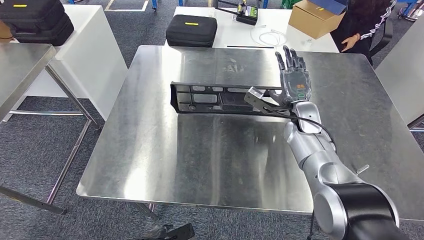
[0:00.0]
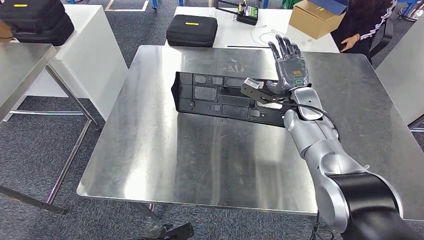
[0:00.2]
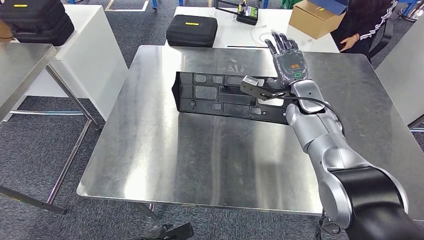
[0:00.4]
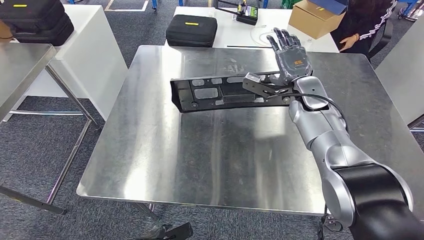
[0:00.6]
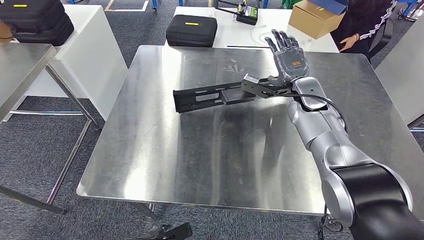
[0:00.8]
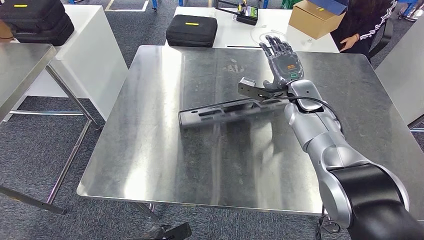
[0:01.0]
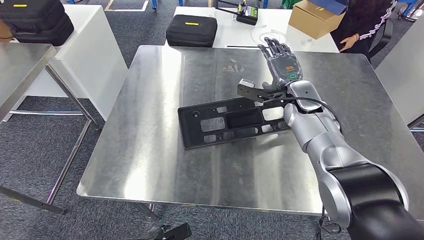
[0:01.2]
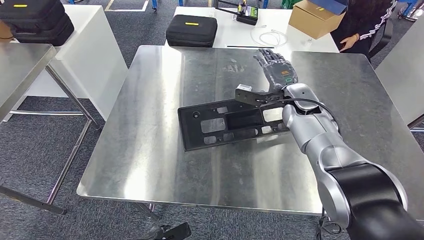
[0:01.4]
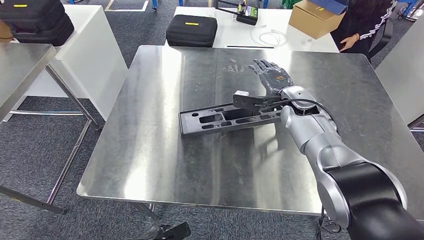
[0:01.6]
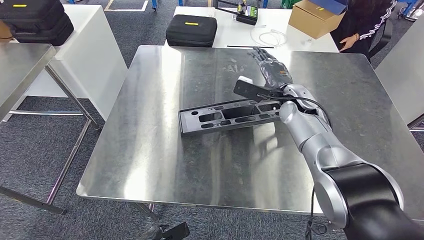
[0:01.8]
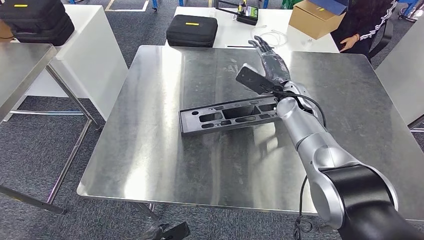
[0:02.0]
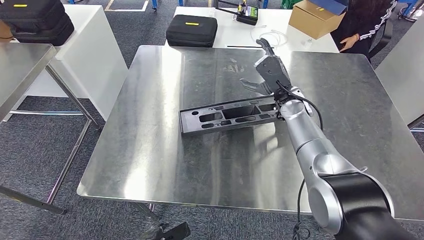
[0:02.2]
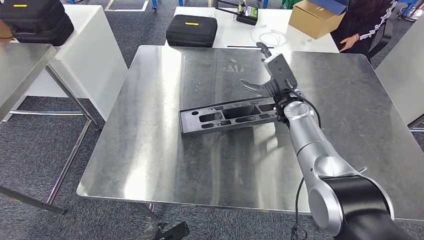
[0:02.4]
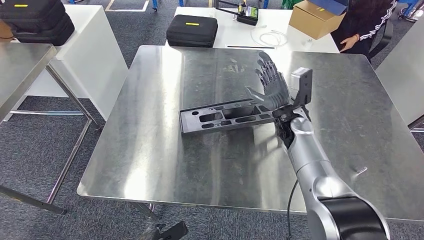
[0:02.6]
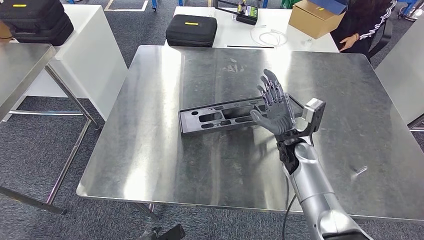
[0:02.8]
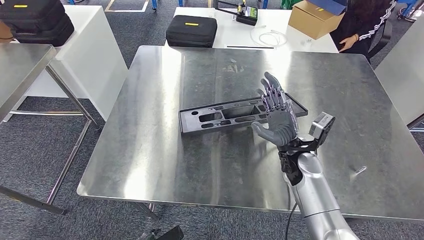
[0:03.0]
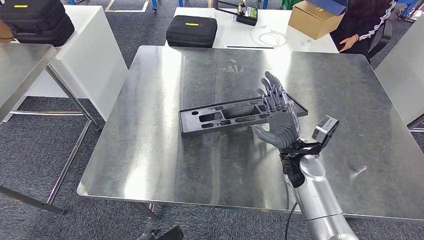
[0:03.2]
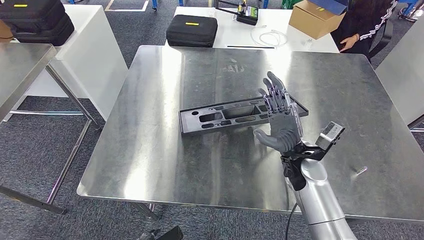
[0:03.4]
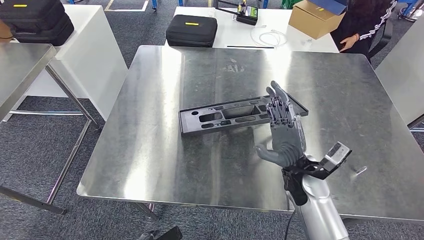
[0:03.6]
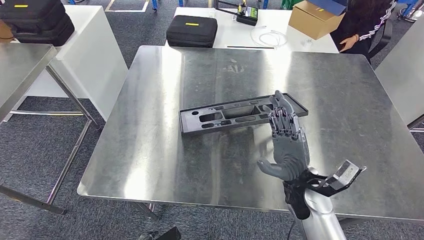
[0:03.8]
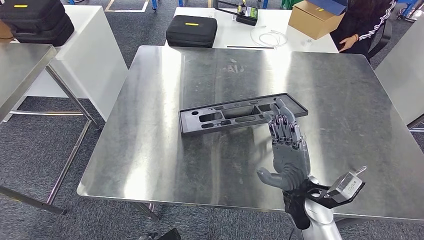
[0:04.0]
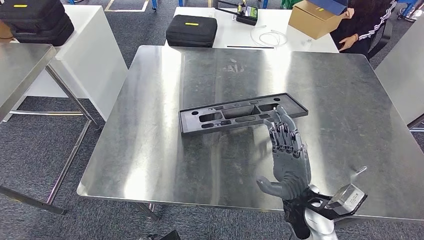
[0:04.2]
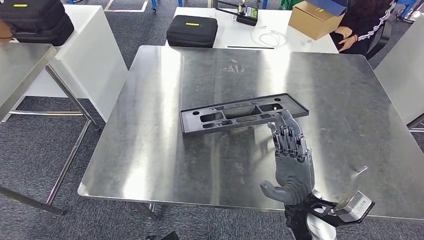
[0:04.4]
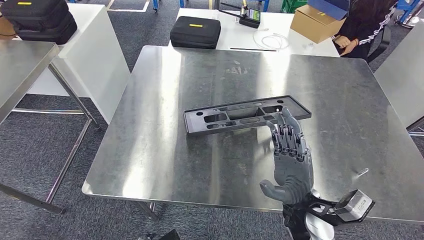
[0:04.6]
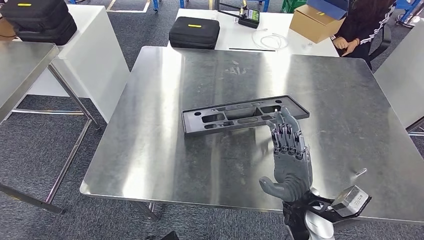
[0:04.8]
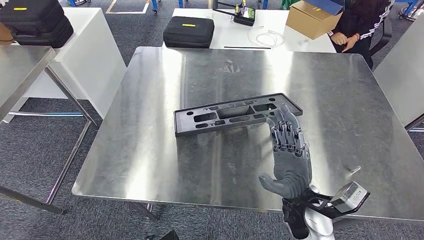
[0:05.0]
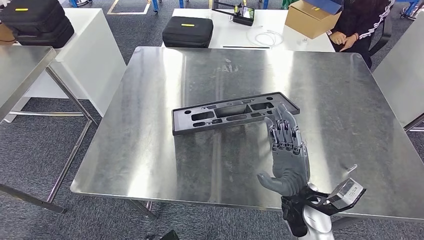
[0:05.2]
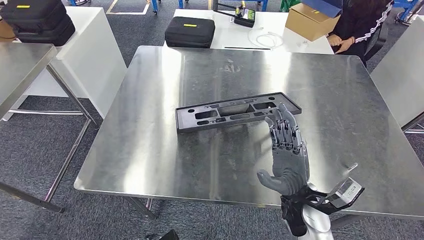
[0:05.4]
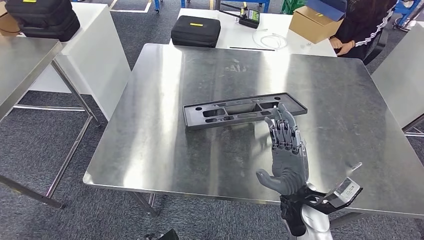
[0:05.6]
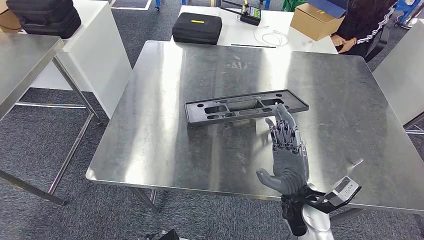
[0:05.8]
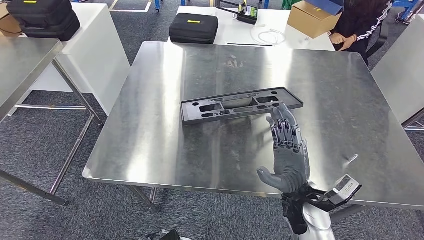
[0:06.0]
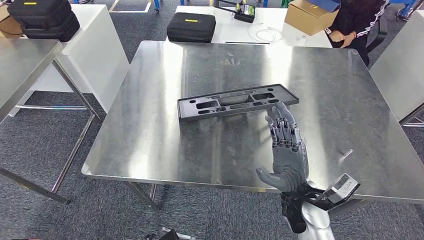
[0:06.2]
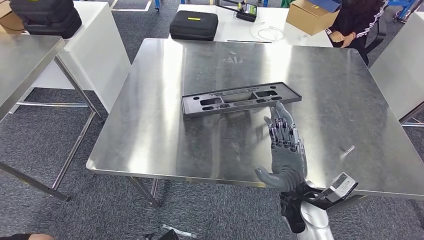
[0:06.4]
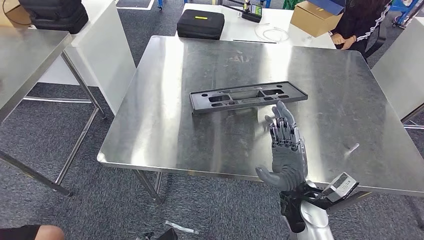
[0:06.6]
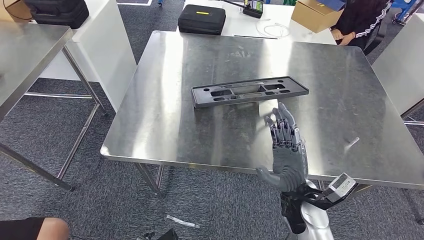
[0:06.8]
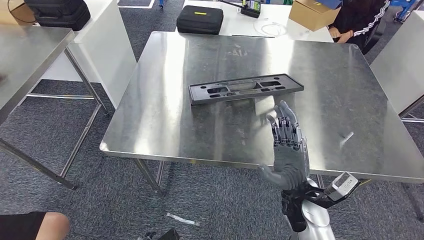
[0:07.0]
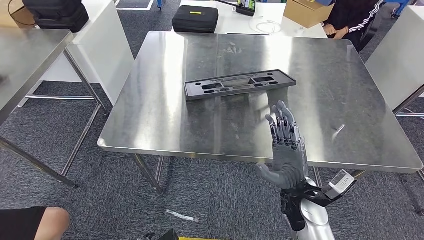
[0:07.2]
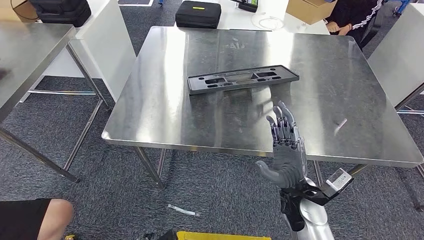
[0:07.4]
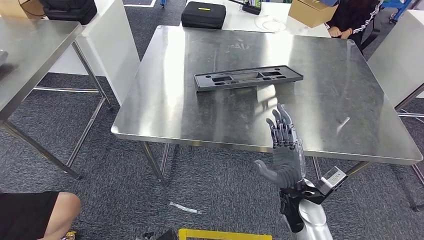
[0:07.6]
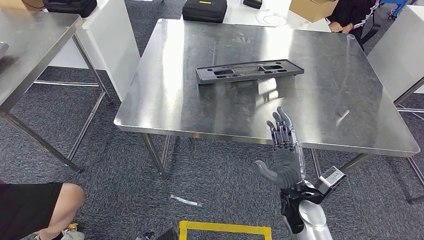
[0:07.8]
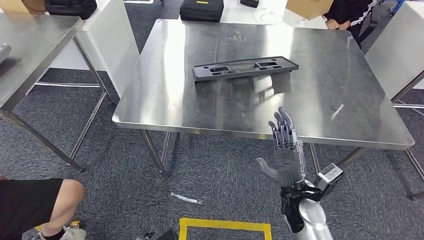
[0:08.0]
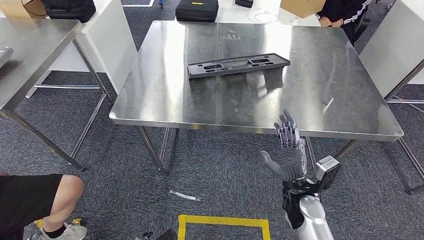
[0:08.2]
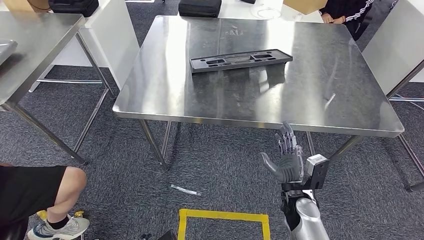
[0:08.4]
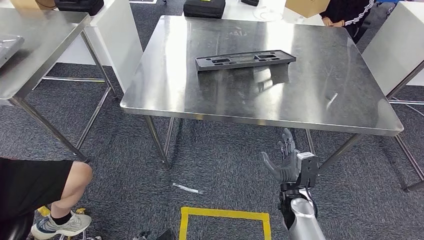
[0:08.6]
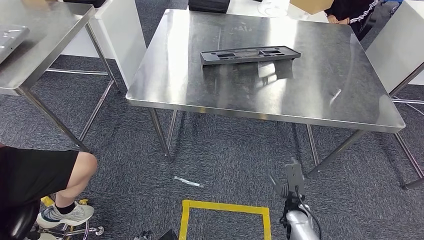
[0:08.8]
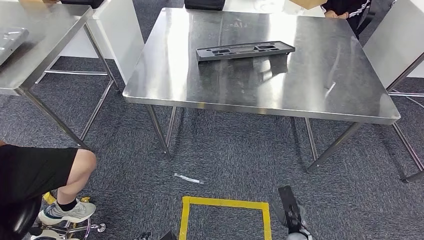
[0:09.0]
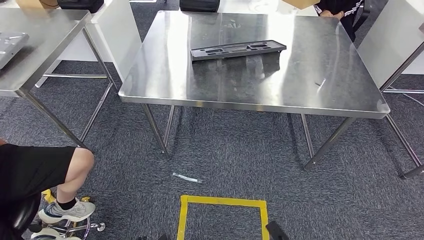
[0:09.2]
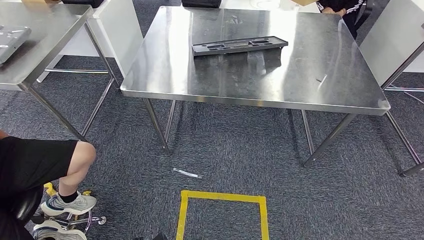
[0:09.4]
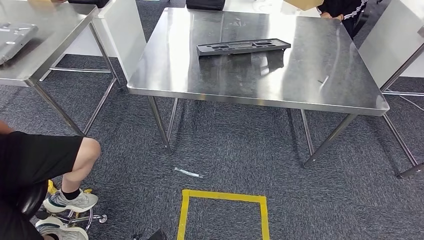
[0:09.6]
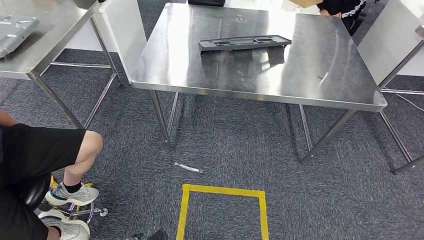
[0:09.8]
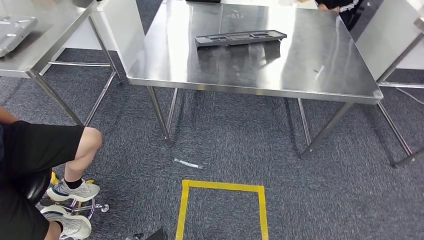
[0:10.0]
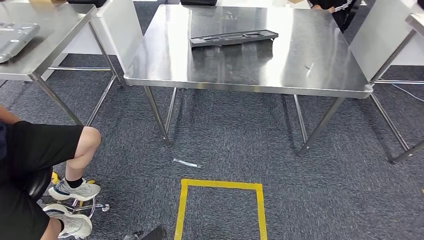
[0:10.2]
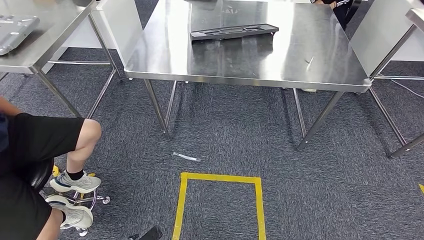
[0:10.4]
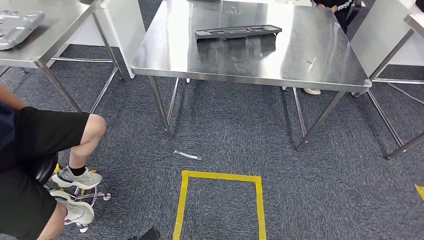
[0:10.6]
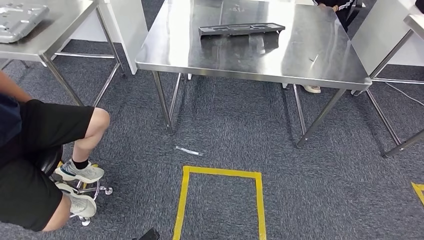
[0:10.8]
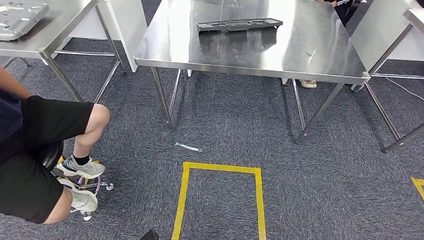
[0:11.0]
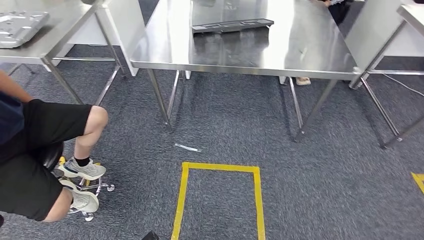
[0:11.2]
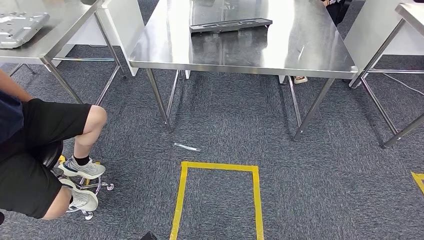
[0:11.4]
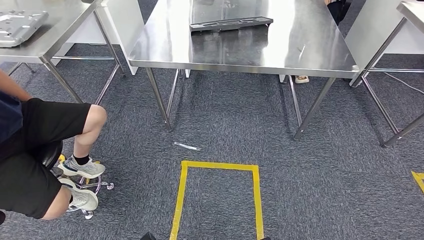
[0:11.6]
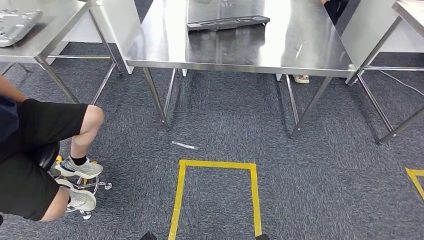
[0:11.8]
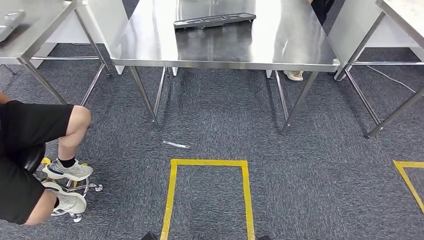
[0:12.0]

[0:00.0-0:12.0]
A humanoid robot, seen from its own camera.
0:00.0 to 0:01.6: The right hand moves some 5 cm.
0:01.6 to 0:03.0: The right hand moves backward and downward, roughly 15 cm.
0:03.0 to 0:04.4: The right hand shifts approximately 15 cm backward.

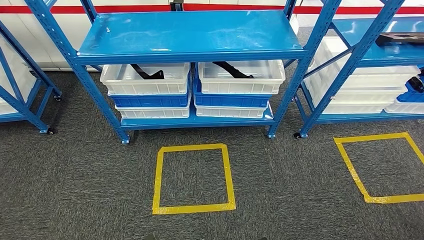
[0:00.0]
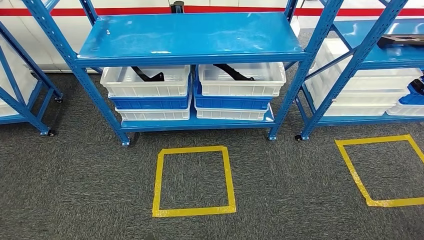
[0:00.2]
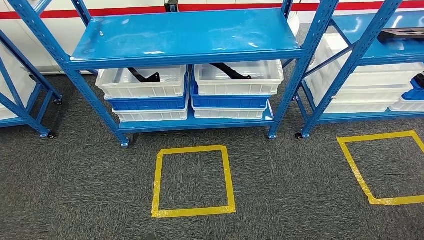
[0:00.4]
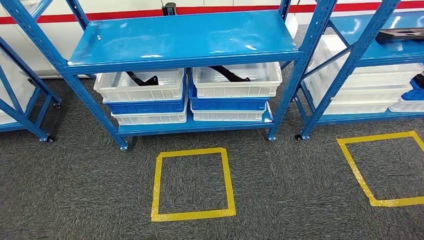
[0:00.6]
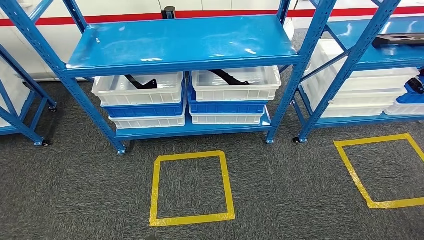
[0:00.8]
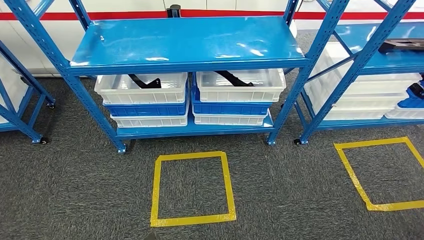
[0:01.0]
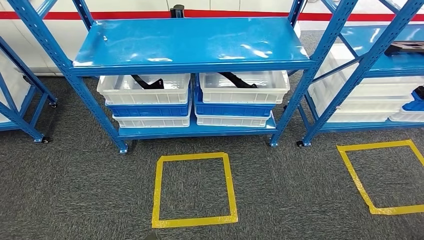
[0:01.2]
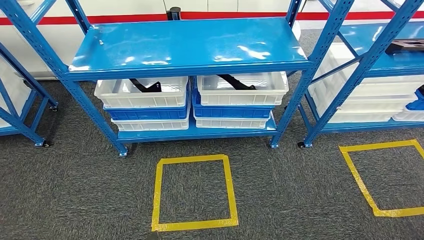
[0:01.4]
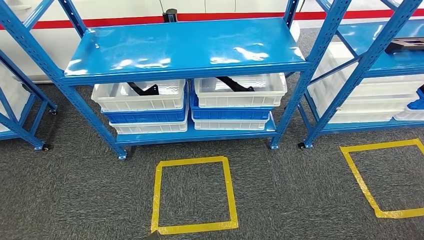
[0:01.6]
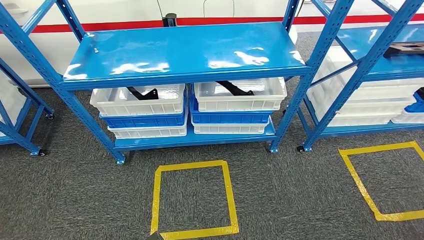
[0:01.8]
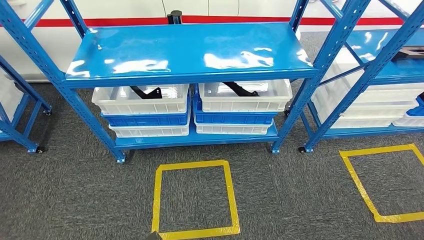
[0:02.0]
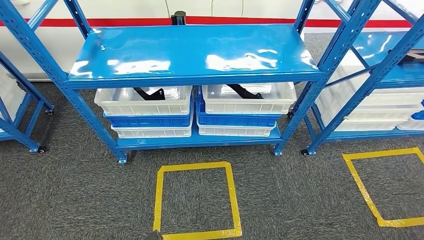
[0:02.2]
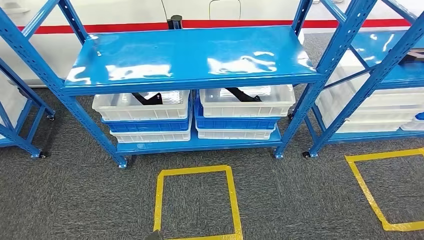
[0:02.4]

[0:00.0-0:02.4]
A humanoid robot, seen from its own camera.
Step, 0:00.0 to 0:02.2: Return to the initial position at the shelf.

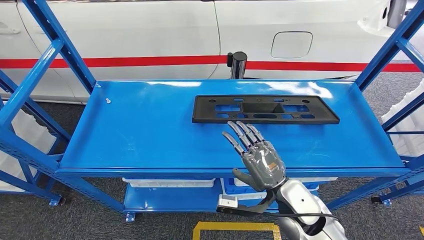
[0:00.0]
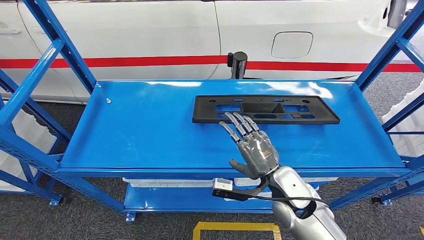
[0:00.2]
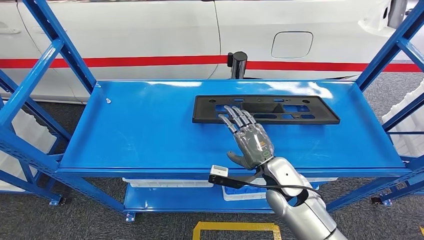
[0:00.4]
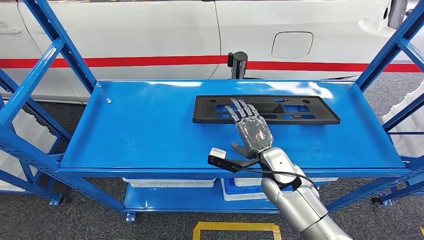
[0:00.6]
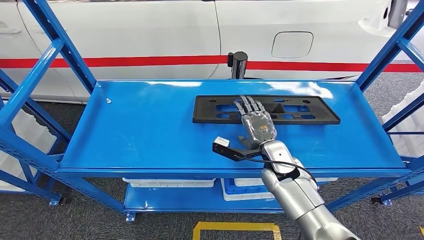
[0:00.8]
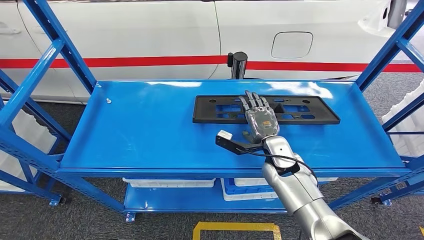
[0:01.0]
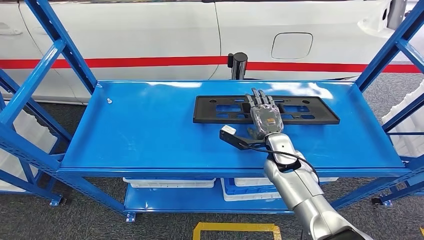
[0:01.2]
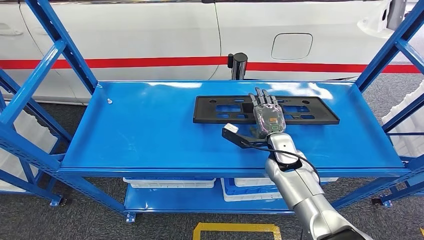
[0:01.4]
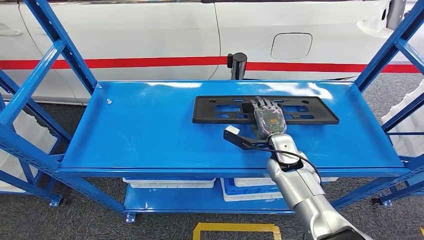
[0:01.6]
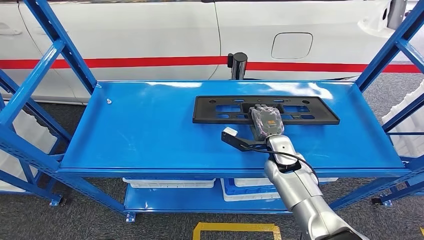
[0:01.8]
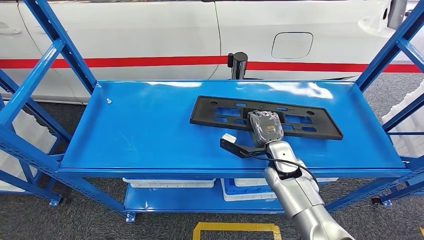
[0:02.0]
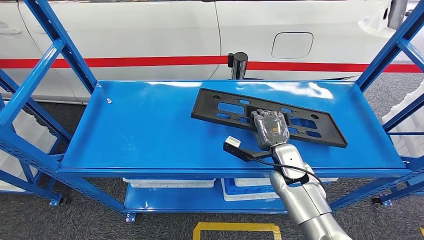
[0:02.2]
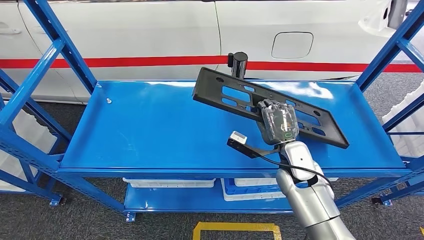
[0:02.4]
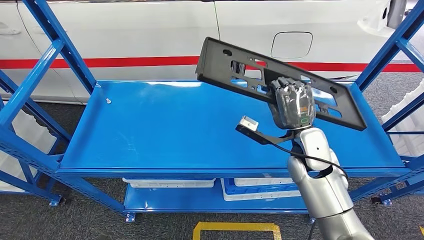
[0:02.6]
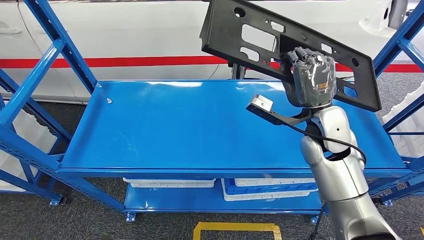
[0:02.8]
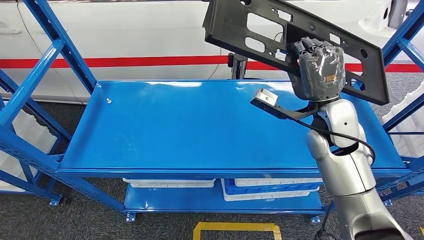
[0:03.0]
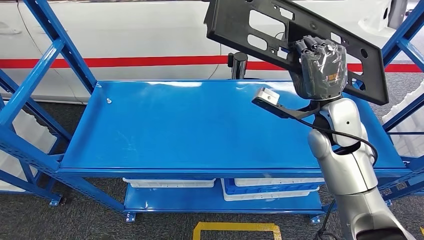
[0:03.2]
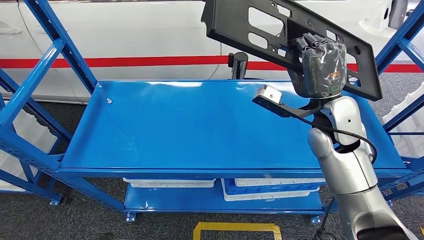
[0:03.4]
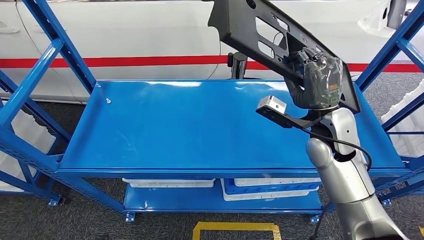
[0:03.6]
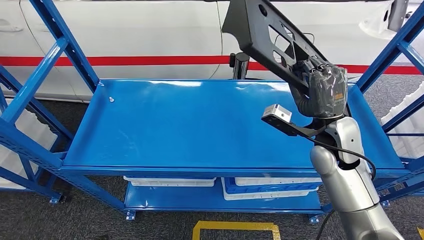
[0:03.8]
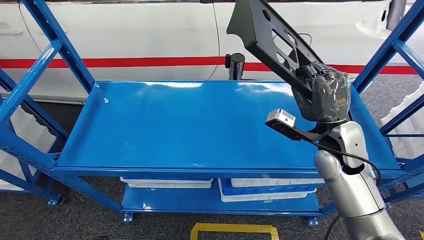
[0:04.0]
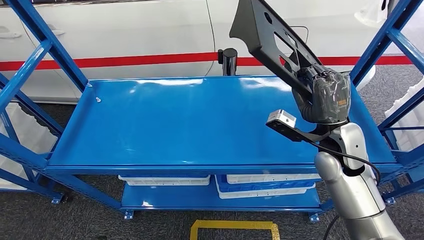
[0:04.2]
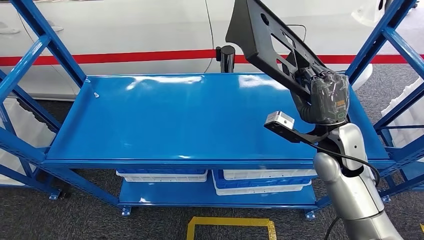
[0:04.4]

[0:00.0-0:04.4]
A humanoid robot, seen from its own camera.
0:00.0 to 0:01.4: The right hand moves forward, about 15 cm.
